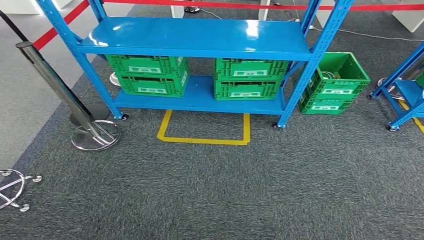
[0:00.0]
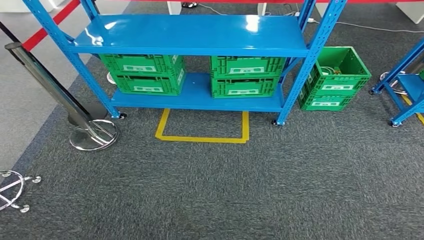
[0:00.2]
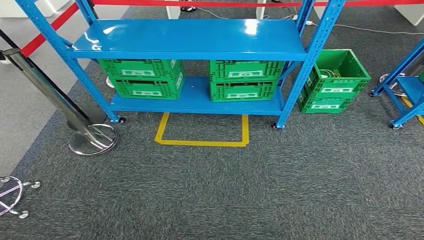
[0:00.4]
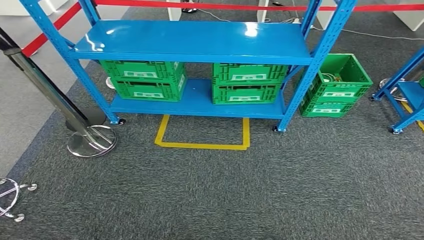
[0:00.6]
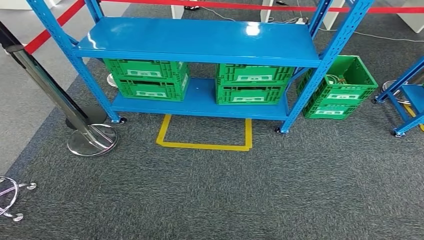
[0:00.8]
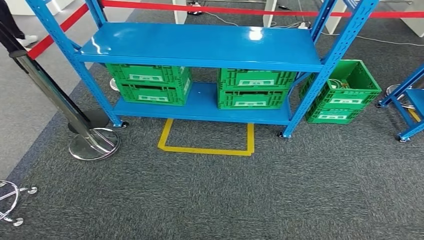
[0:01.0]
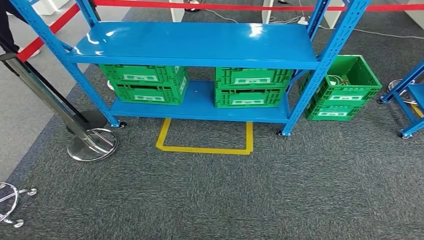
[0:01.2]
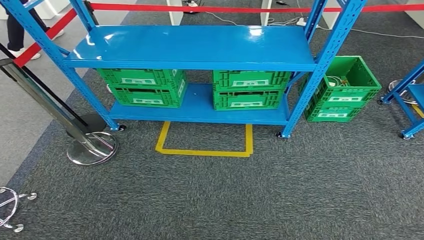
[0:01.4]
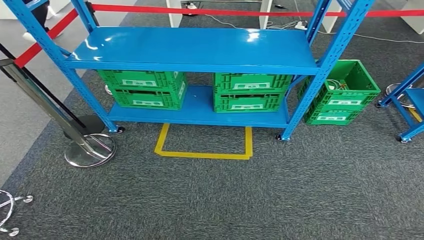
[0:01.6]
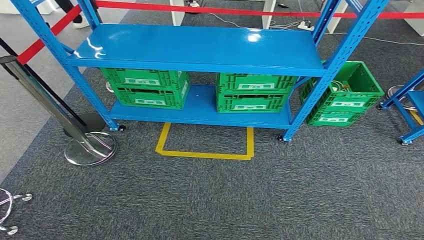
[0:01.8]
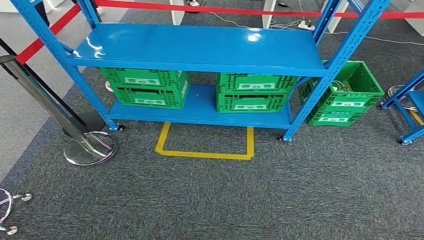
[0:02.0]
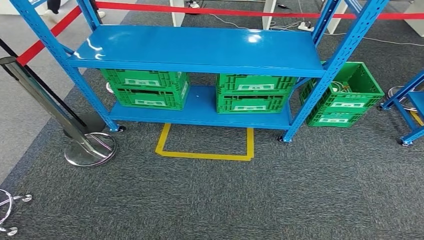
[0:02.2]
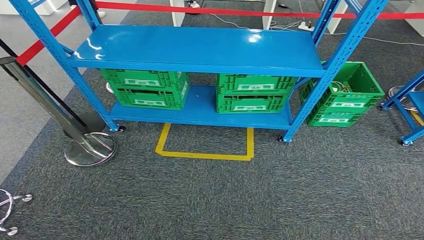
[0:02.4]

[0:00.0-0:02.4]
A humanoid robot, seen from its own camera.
Step, 0:00.0 to 0:02.4: Move to the initial position at the workbench.
